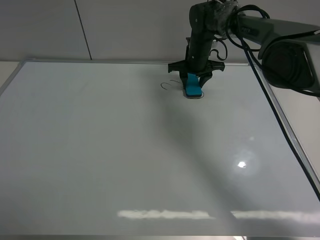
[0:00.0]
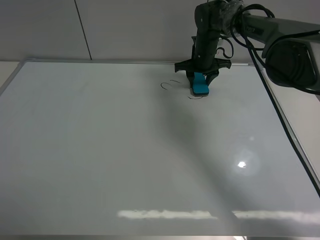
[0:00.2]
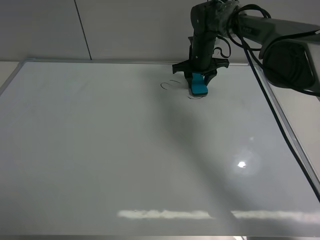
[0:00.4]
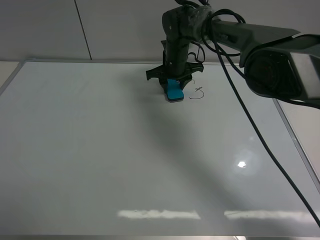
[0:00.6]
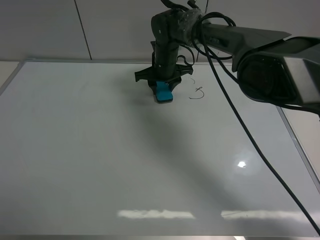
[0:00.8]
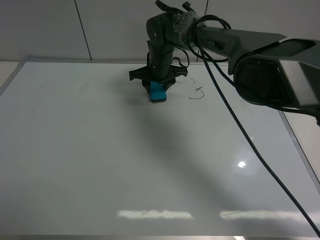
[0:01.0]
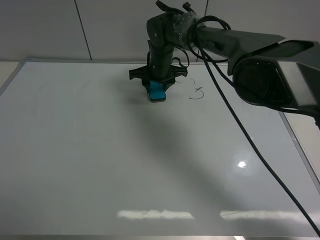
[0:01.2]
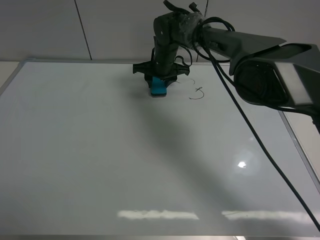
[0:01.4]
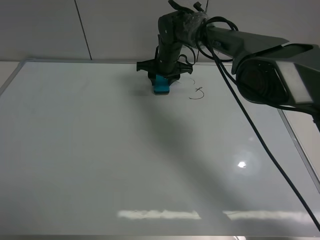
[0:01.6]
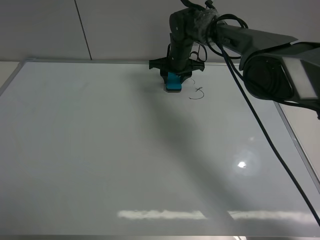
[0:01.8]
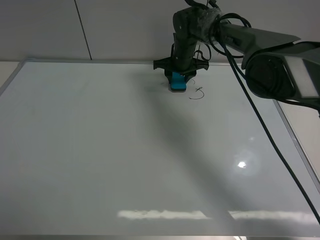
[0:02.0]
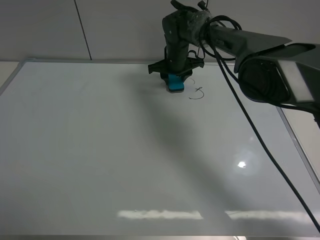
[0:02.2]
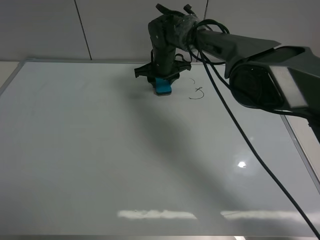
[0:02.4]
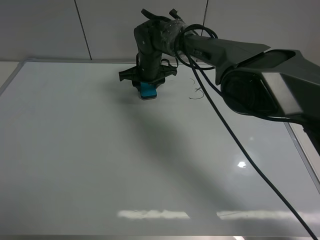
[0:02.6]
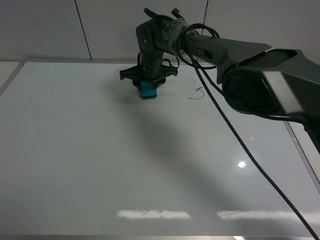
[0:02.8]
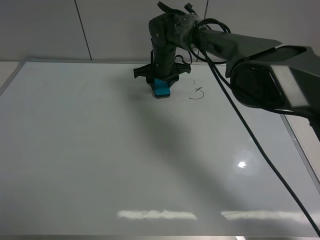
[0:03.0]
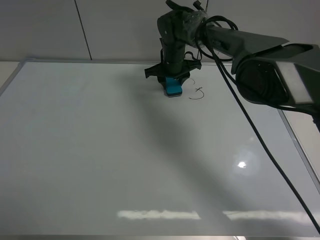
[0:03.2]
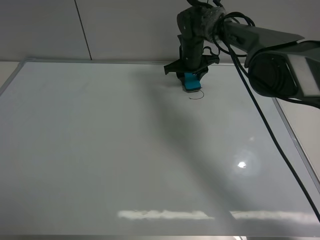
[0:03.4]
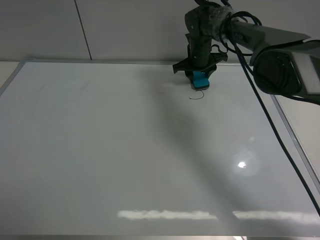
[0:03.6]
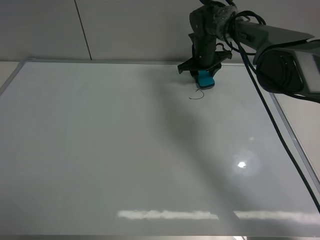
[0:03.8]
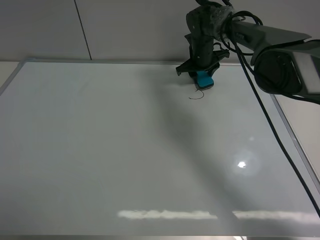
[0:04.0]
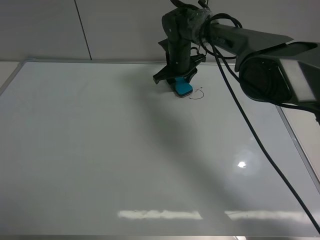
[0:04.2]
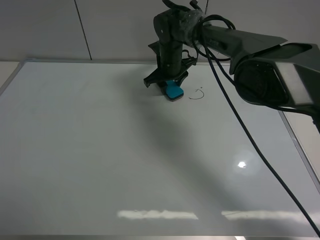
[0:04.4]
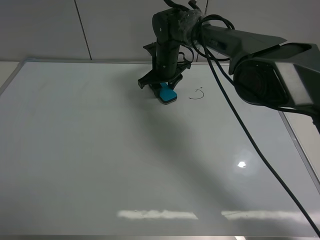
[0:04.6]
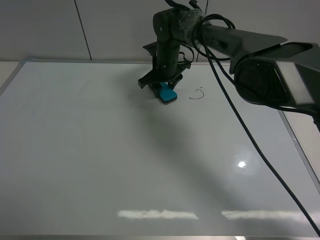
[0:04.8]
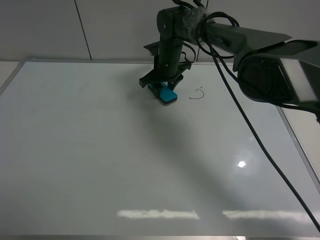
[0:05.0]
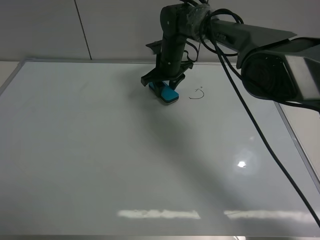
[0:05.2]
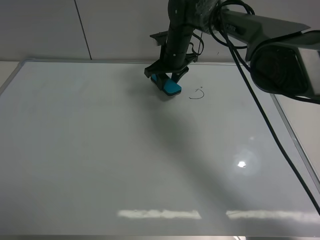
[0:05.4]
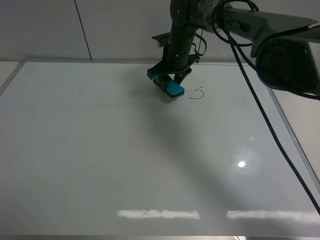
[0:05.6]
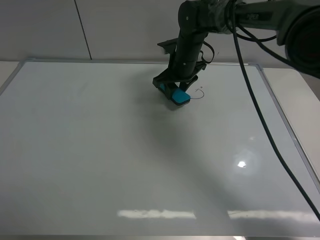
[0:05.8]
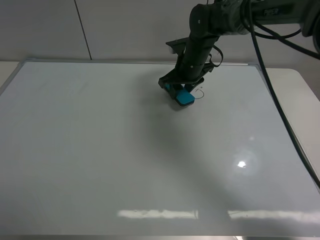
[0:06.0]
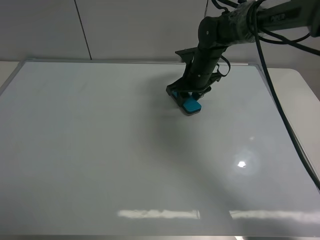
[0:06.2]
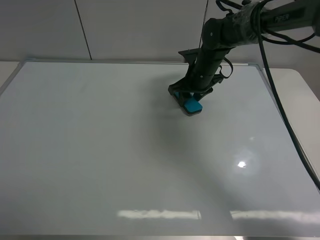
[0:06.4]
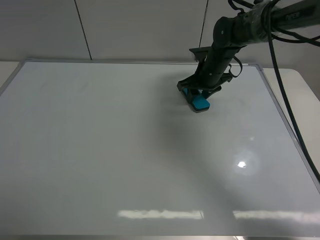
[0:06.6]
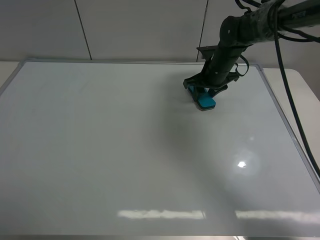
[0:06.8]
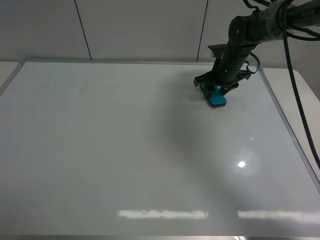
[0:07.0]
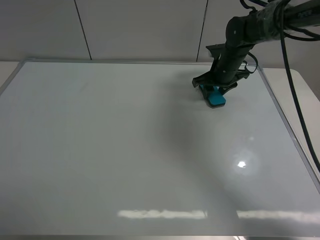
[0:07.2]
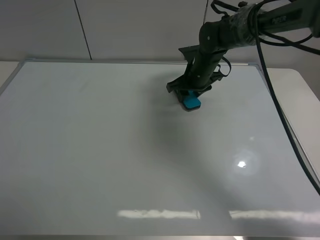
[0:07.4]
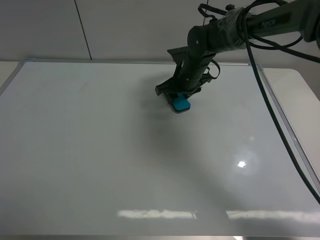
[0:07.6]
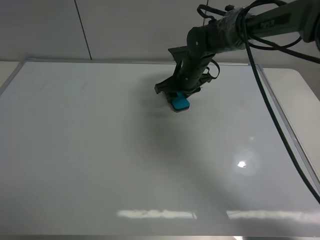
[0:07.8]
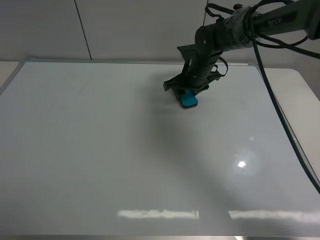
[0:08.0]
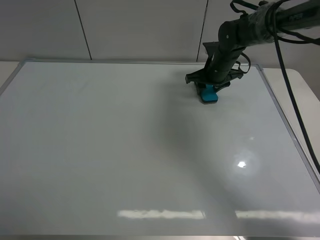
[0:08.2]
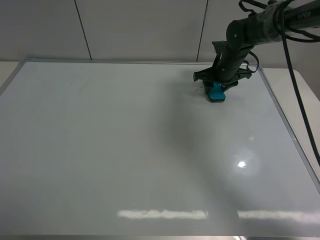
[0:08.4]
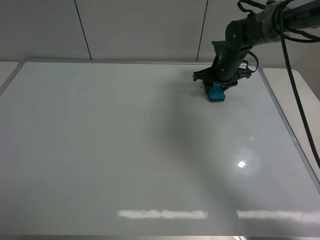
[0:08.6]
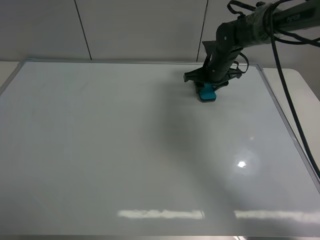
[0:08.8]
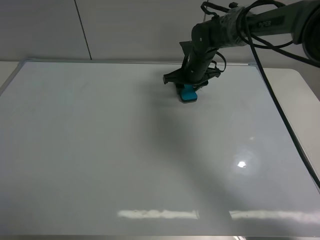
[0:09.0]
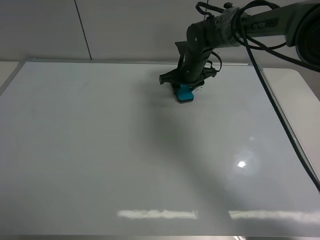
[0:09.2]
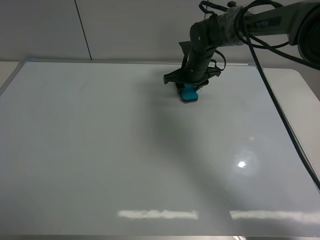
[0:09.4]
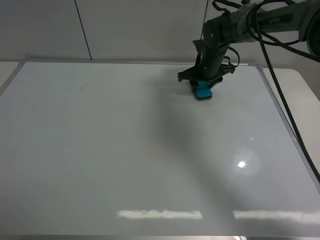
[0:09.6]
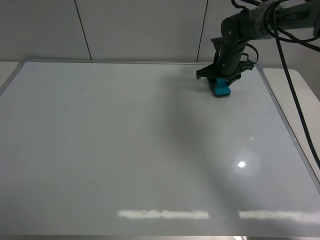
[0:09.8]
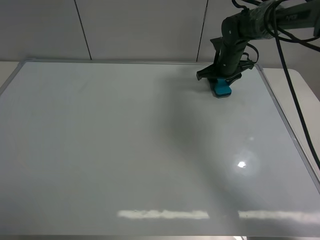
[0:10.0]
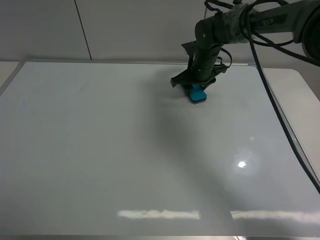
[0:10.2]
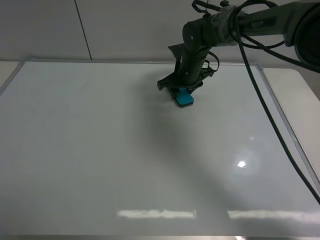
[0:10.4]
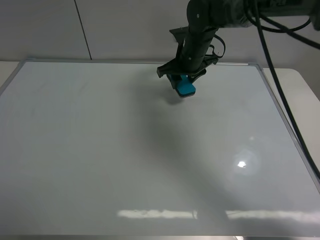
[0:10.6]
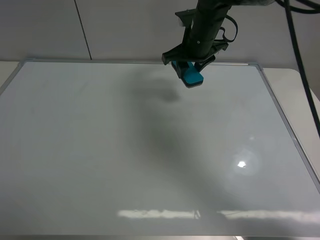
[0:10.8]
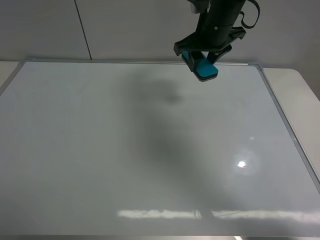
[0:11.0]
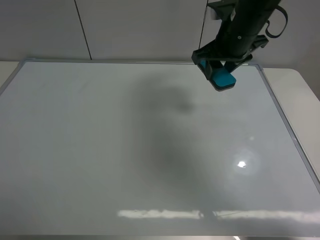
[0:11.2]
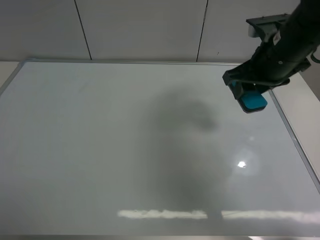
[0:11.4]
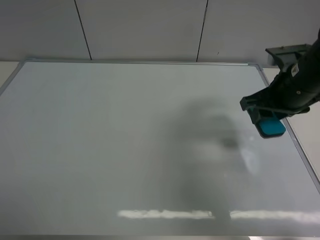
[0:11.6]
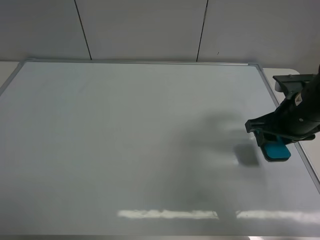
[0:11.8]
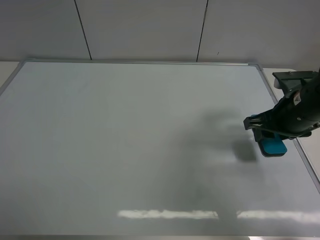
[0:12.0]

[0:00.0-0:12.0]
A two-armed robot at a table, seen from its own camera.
Task of the whole recording: use the left gripper to place the eraser in the right, use the right gripper to pick up the eraser, wipe the notes on the whiteboard clean, and then put it down.
Step, 0:00.0 to 0:10.2: Wipe off the writing on the board with right gripper.
0:00.0 to 0:01.6: The right gripper travels to the left by approximately 10 cm.
0:01.6 to 0:03.0: The right gripper goes to the left and returns, some 5 cm each way.
0:03.0 to 0:04.4: The right gripper travels to the right and back again, approximately 10 cm each way.
0:04.4 to 0:06.0: The right gripper travels to the right by roughly 5 cm.
0:06.0 to 0:07.6: The right gripper reaches roughly 10 cm to the right, then returns.
0:07.6 to 0:09.0: The right gripper goes to the right and returns, roughly 10 cm each way.
0:09.0 to 0:10.4: The right gripper reaches approximately 10 cm to the right, then returns.
0:10.4 to 0:12.0: The right gripper goes some 25 cm backward and to the right.

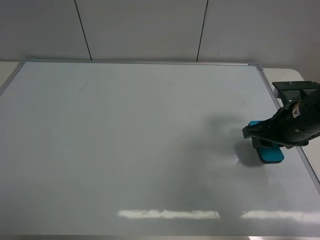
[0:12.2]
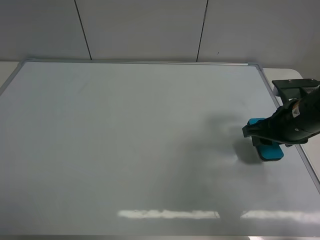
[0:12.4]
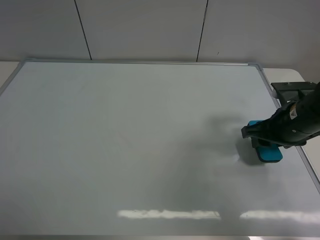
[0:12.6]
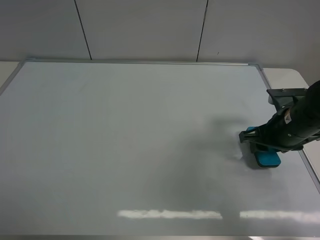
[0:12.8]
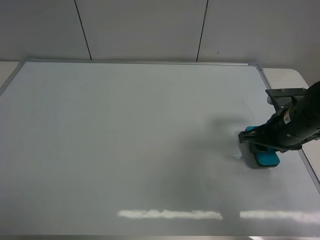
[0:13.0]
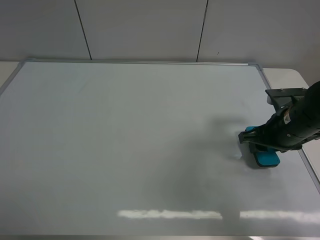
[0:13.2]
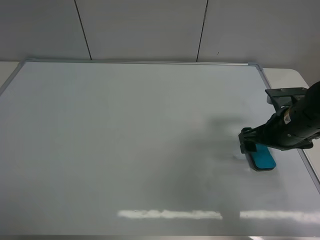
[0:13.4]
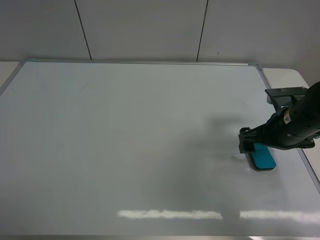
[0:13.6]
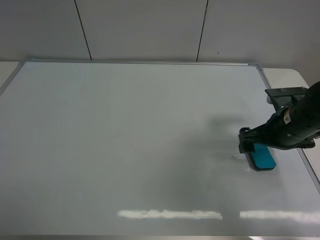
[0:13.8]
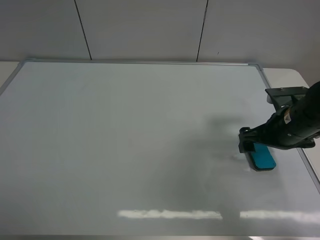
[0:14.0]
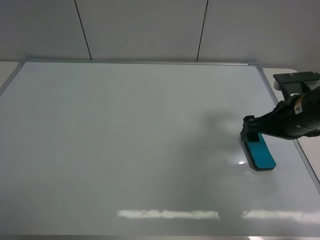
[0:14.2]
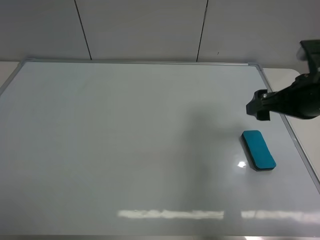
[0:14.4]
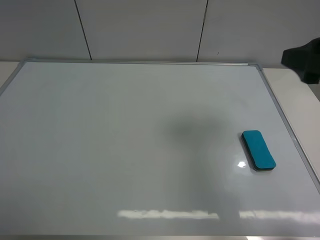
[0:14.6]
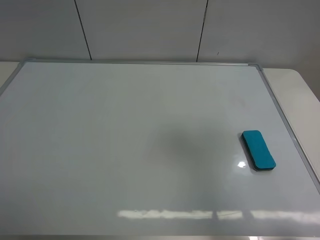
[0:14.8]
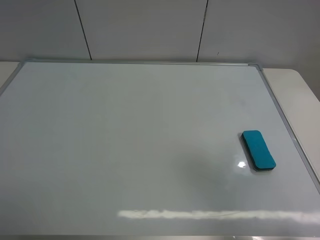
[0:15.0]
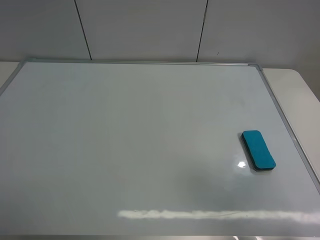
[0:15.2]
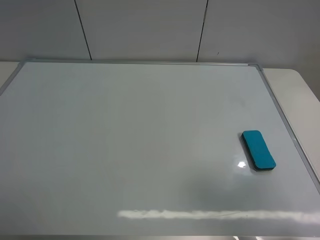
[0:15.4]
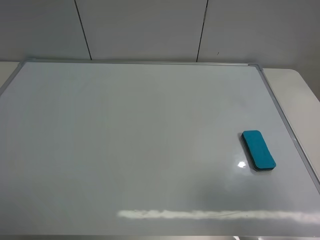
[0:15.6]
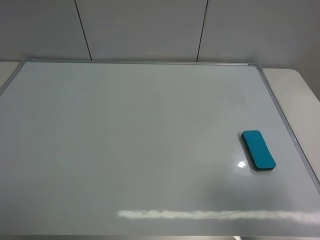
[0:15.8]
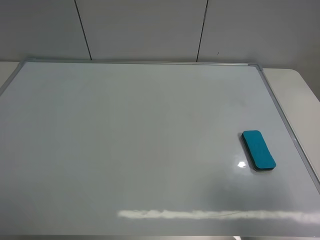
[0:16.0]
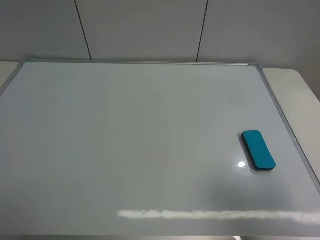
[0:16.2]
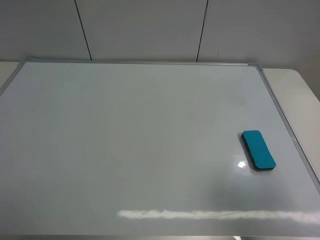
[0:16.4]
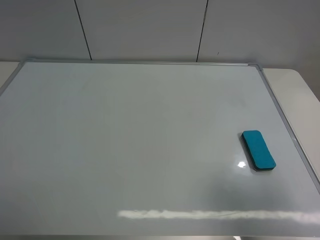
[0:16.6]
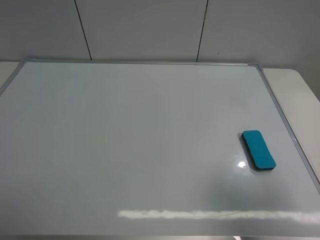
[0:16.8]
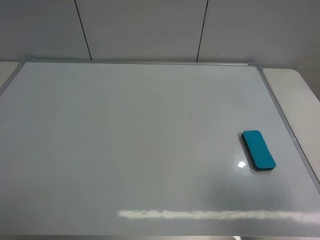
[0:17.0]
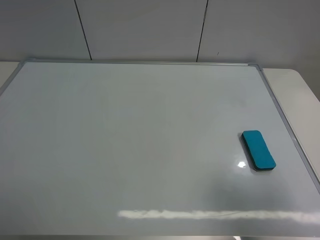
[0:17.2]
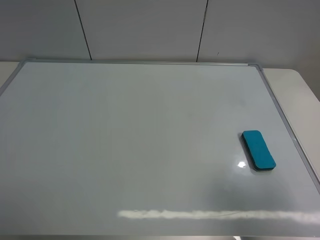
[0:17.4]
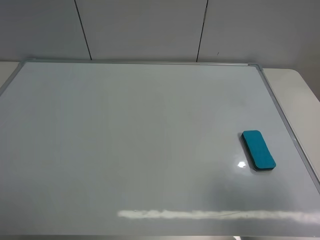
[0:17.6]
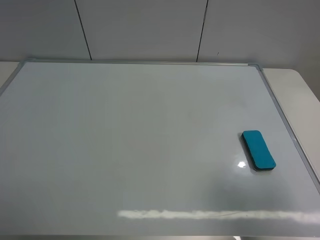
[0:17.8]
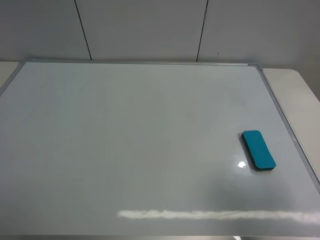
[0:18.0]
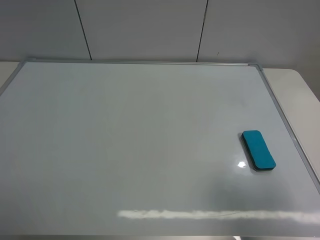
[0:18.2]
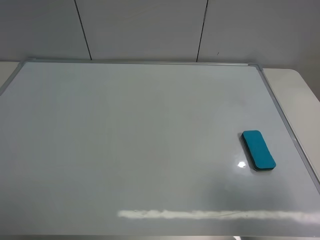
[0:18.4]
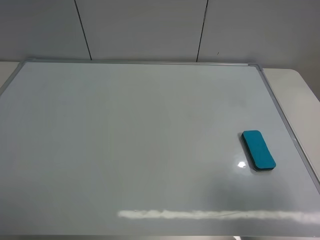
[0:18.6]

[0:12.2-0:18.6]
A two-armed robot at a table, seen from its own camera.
Task of the whole recording: use the left gripper to place the eraser in the right, use the right gripper to pick up the eraser, wipe the notes on the whiteboard clean, and then put it down.
0:12.2 to 0:13.8: The right gripper opens its fingers.
0:13.8 to 0:15.4: The right gripper travels backward and upward by approximately 30 cm.
0:17.0 to 0:18.6: Both grippers stay put.
